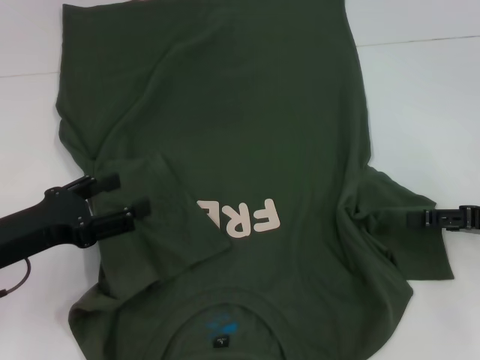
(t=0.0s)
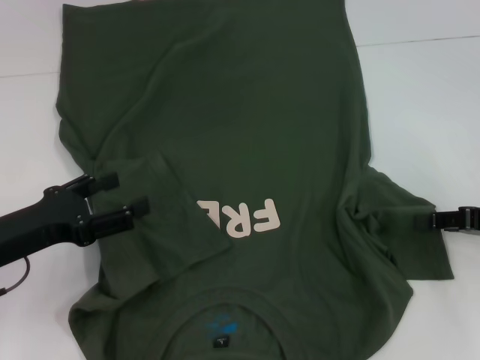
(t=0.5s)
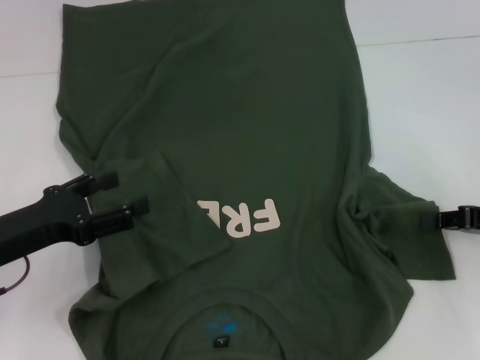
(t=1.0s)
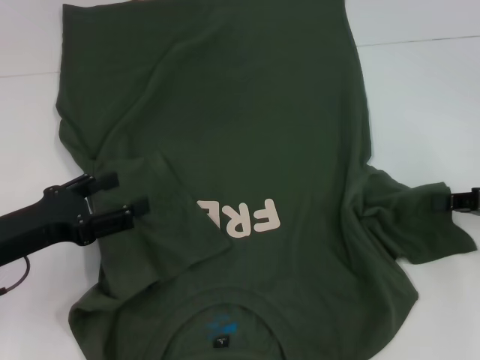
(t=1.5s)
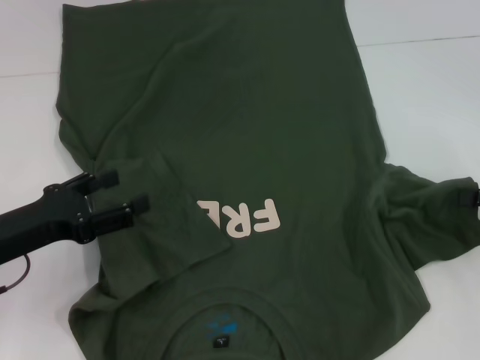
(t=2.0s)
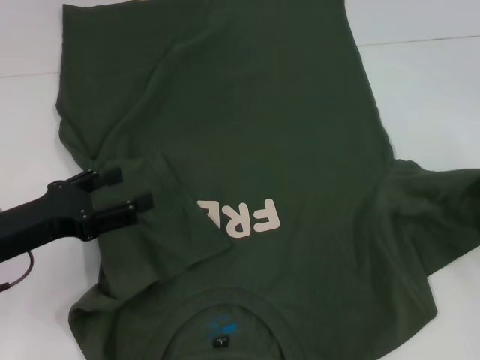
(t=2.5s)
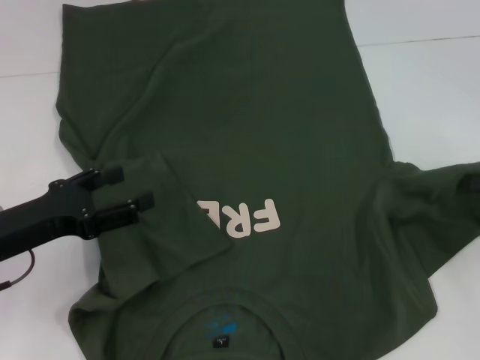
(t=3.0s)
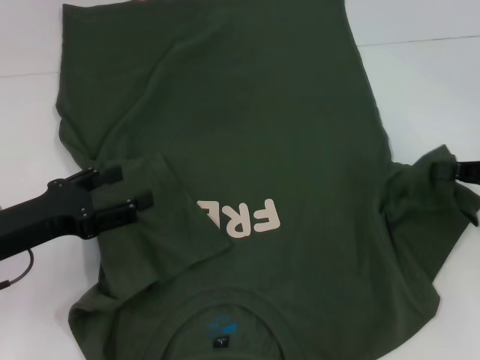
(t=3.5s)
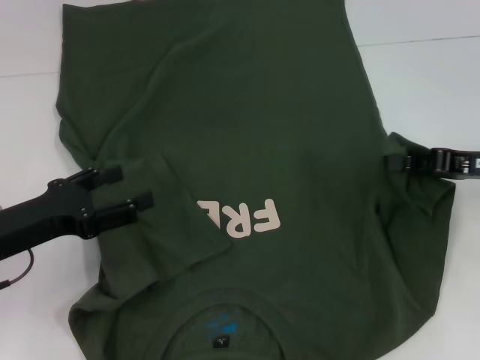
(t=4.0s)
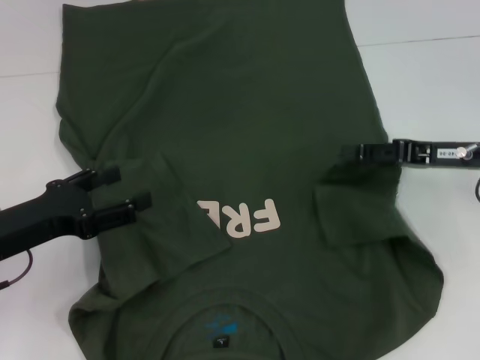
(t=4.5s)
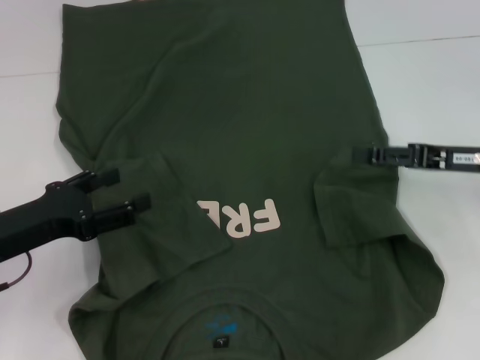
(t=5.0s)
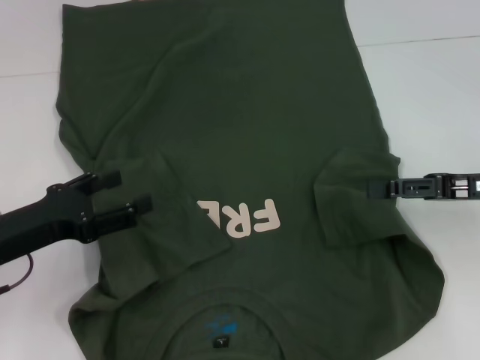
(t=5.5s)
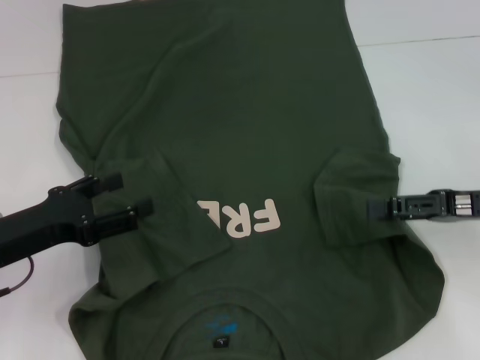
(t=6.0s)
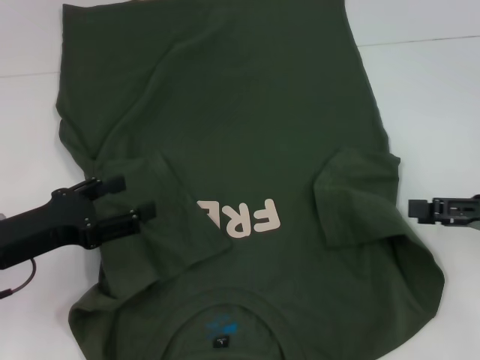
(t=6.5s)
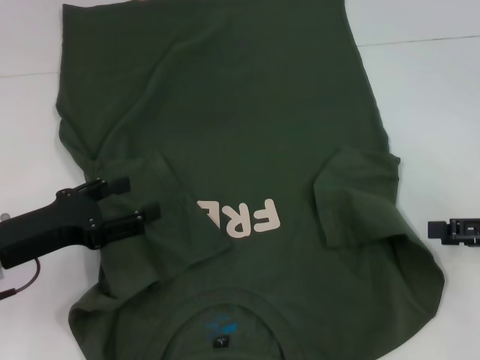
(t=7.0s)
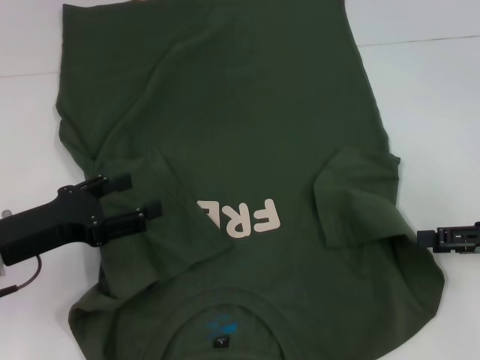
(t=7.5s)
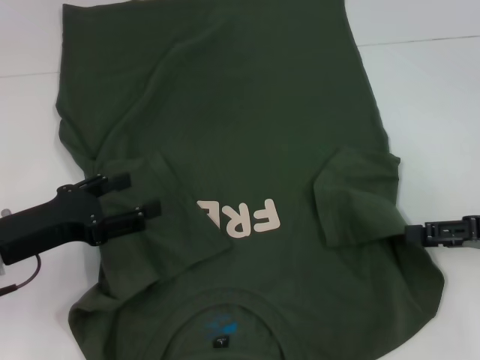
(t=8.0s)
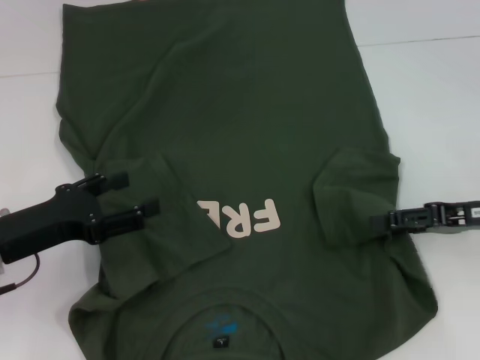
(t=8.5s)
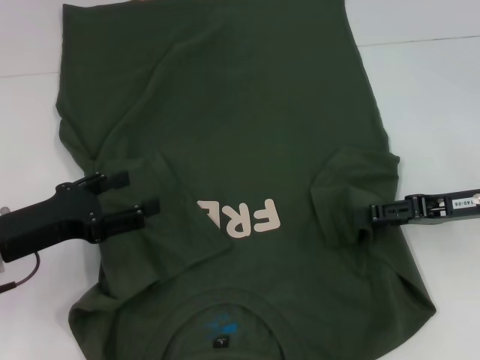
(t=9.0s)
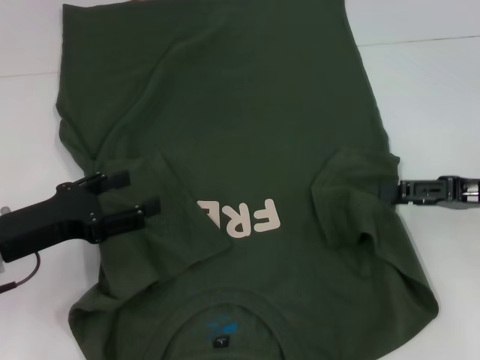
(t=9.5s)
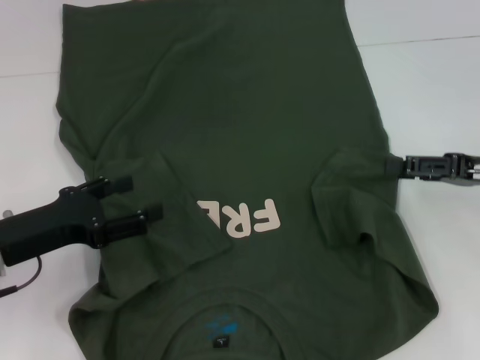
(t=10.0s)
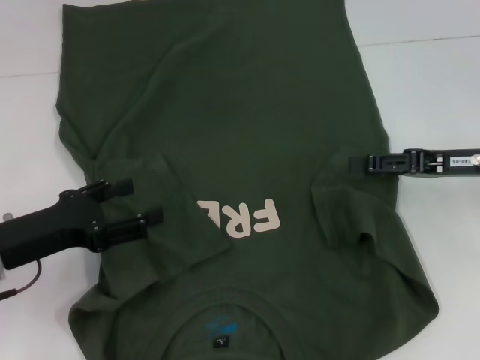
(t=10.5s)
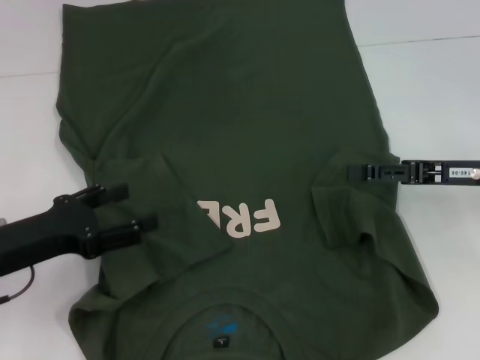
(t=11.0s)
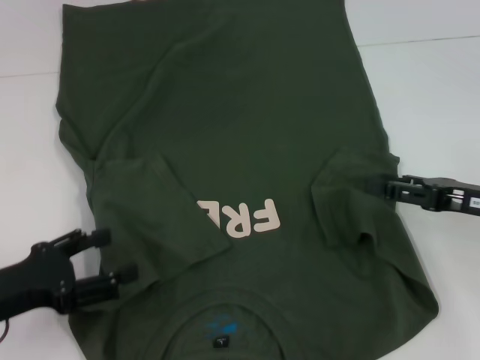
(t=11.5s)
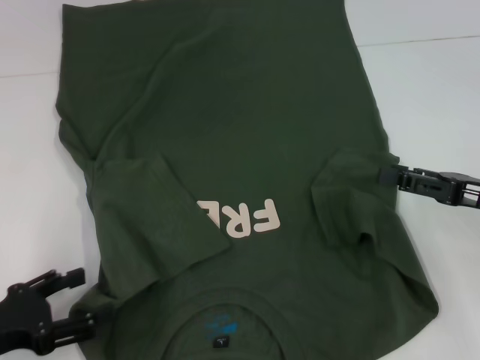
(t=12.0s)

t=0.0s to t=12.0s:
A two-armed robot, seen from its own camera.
t=0.0s to t=2.0s: The right gripper closes its fingers.
t=2.0s to t=4.0s: The right gripper moves to the left, roughly 5 cm.
t=4.0s to t=6.0s: The right gripper opens its fingers.
t=8.0s to t=10.0s: The grippers stay close to where they were, moving slightly.
t=10.0s to t=12.0s: The left gripper heads backward, covering roughly 10 cm.

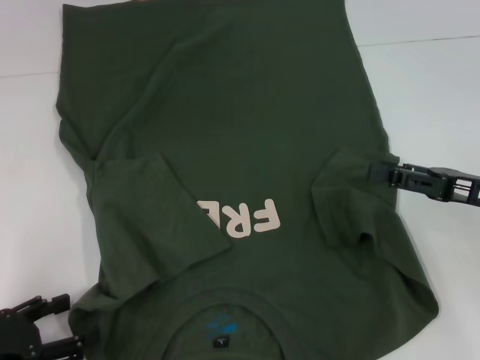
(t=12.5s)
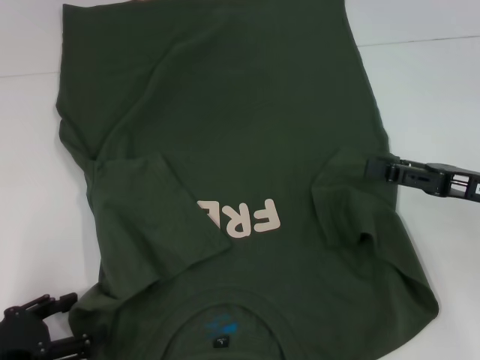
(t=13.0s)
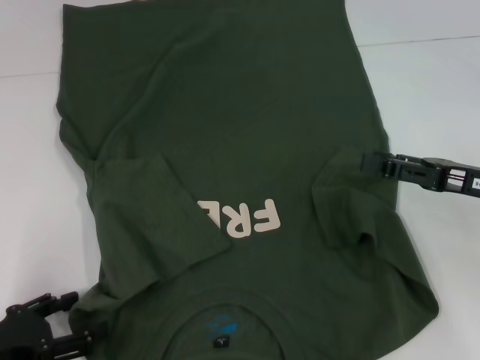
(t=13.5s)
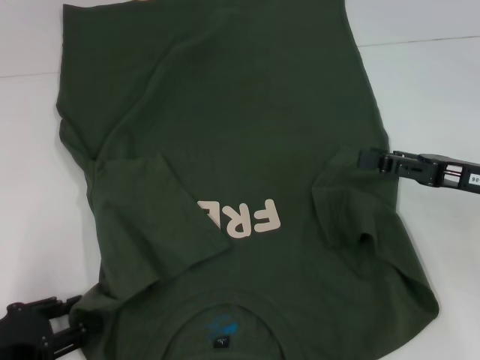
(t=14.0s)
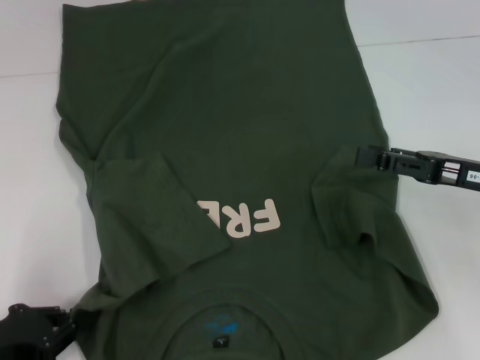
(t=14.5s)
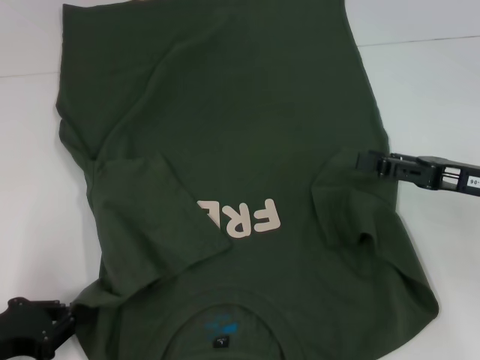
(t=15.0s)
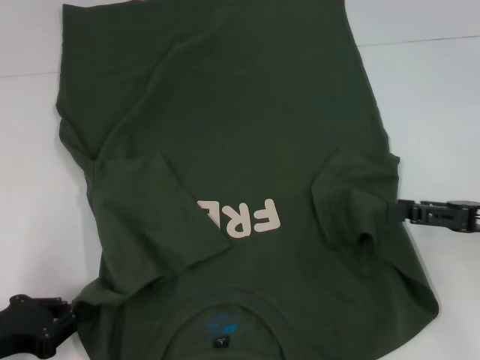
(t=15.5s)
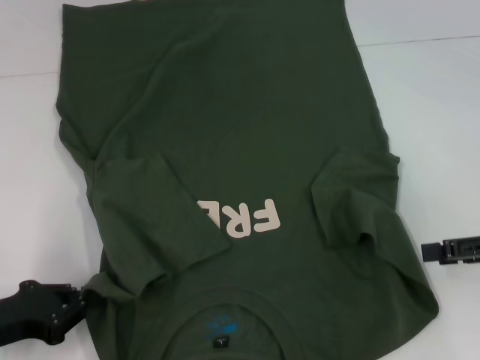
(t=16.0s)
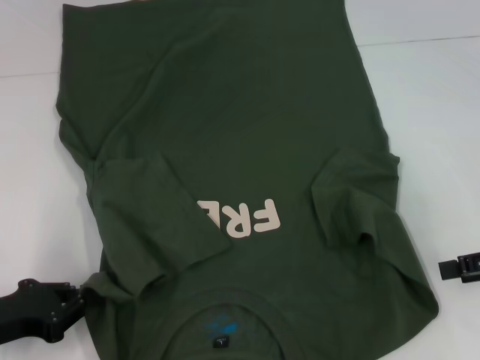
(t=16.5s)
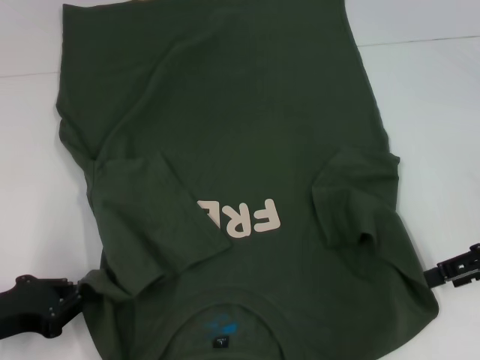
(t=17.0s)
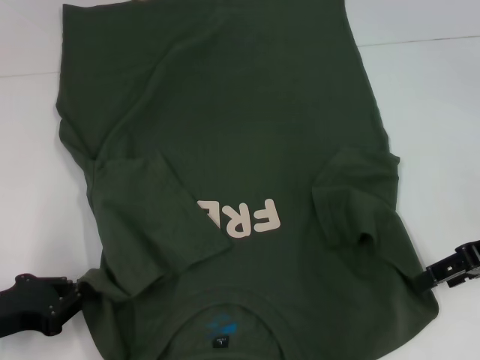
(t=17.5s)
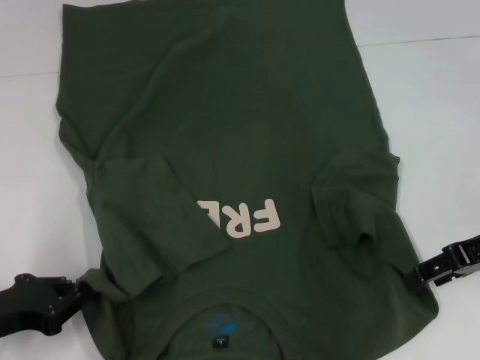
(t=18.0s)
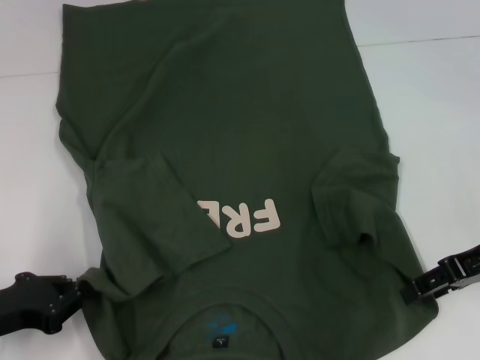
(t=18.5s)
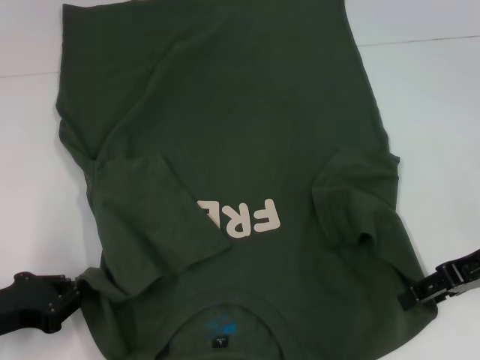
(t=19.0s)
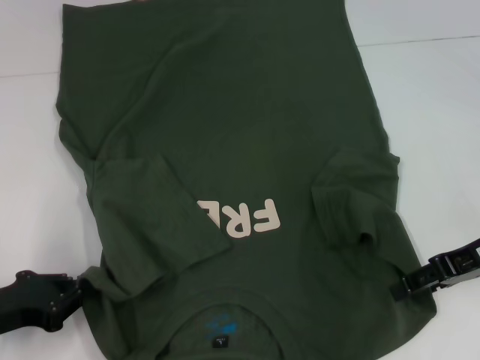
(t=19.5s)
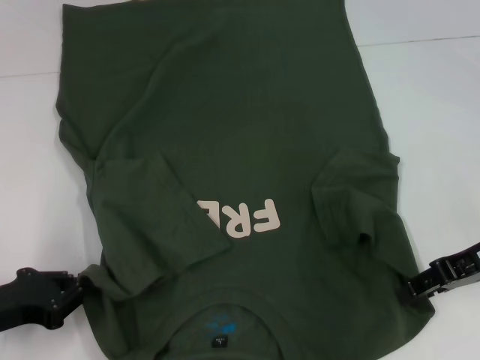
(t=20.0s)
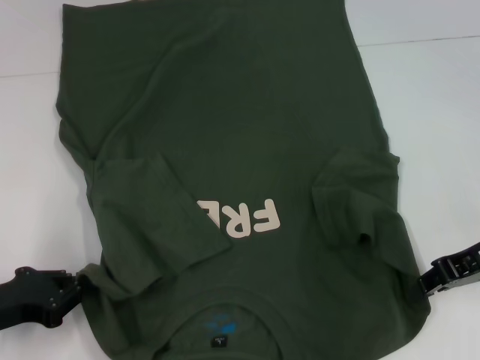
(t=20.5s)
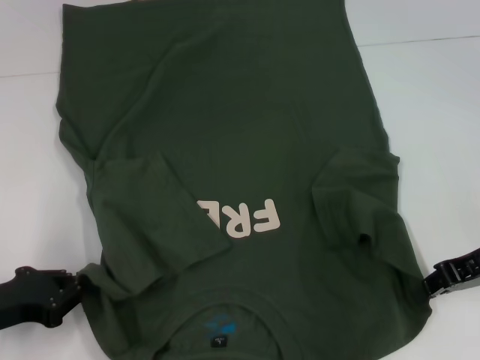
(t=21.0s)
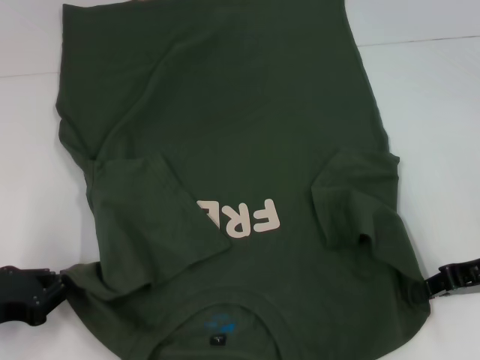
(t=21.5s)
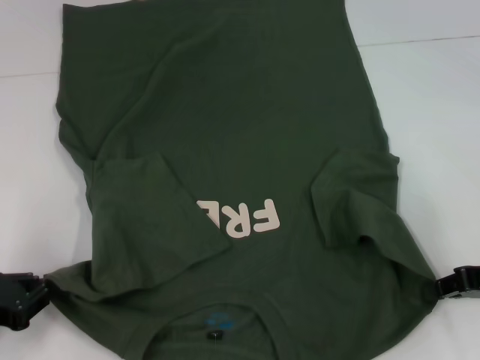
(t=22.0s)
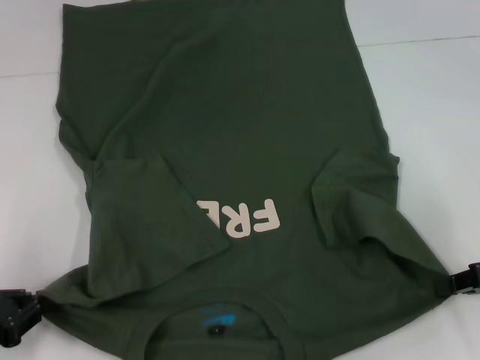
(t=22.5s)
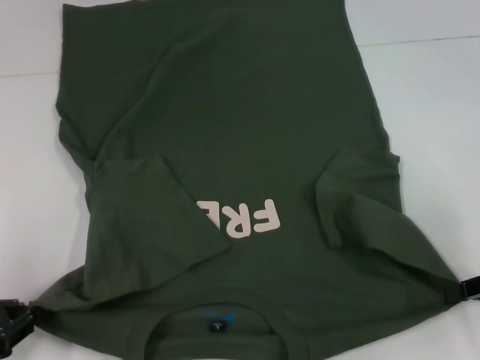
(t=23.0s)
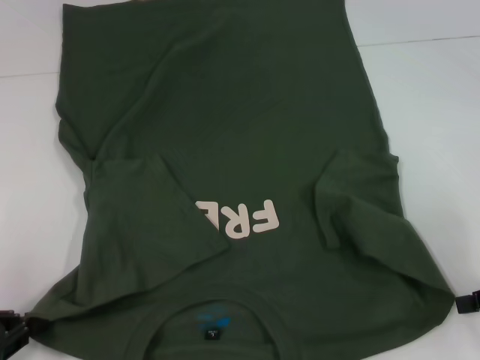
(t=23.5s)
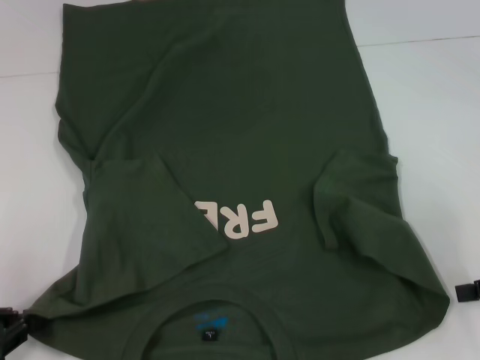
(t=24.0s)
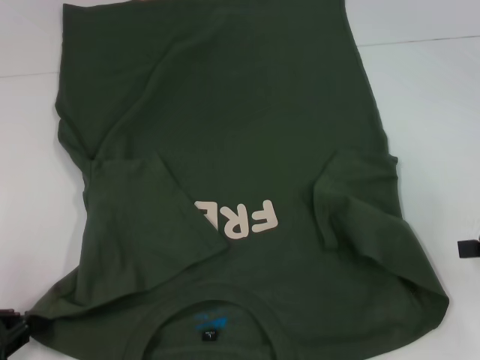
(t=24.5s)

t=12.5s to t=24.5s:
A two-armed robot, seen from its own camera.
t=12.5s to t=14.5s: The left gripper closes.
t=14.5s to t=16.5s: The right gripper is displaced to the right by approximately 5 cm.
t=16.5s to t=18.5s: The right gripper travels to the left by roughly 5 cm.
t=18.5s to t=20.5s: The right gripper closes up.
t=20.5s to t=22.5s: The right gripper shifts roughly 5 cm to the right.
t=22.5s to t=24.5s: The grippers make only small movements.

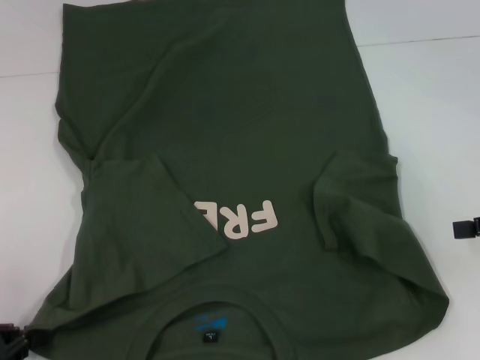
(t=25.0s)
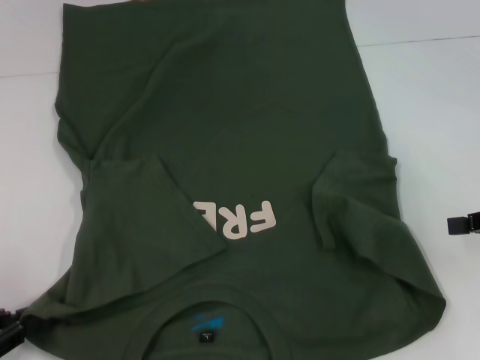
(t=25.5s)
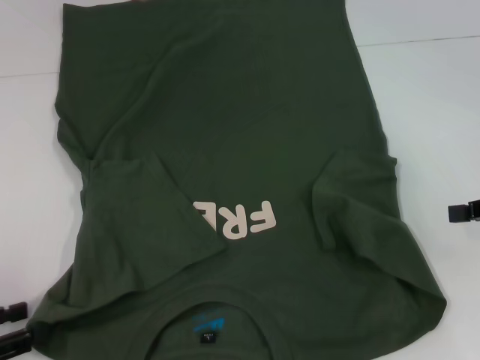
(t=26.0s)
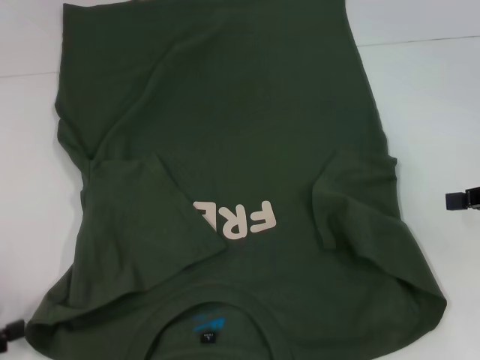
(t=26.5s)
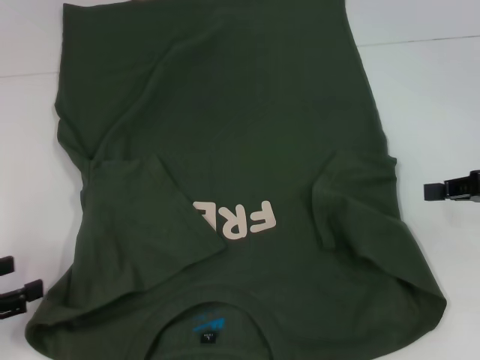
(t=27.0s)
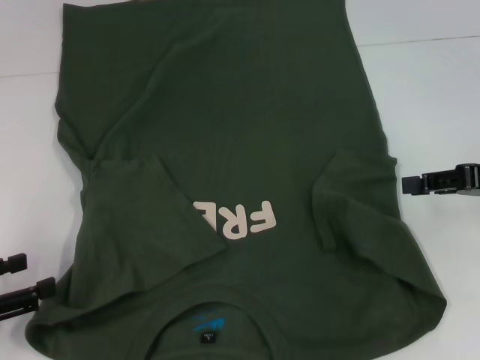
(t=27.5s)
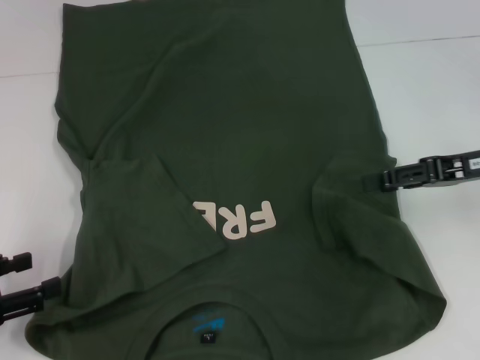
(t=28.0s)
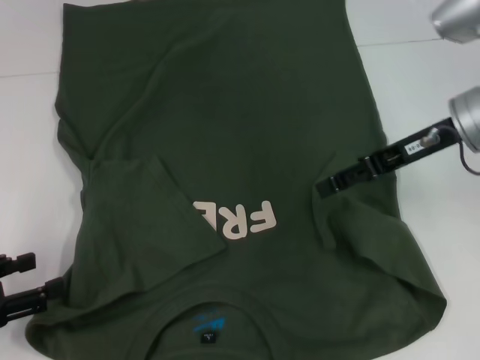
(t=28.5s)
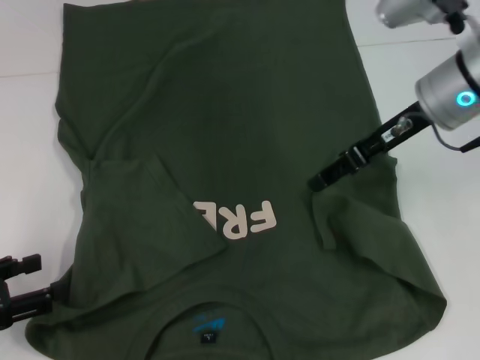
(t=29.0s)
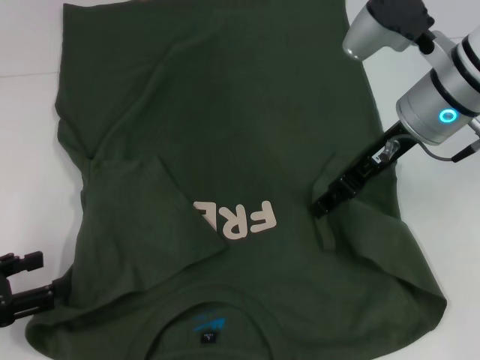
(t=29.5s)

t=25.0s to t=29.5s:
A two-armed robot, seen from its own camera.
t=25.0s to t=27.0s: The left gripper opens its fingers.
t=27.0s to t=29.5s: The right gripper shifts some 20 cm to the left and forward, and opens up.
